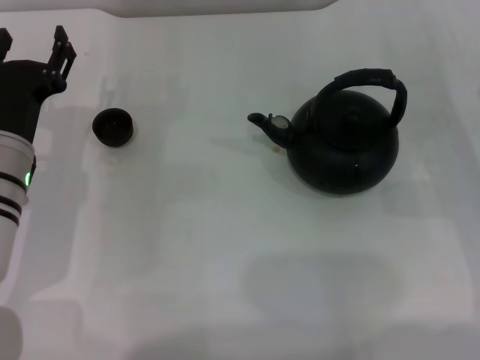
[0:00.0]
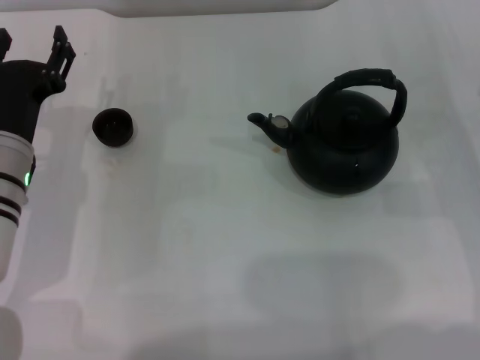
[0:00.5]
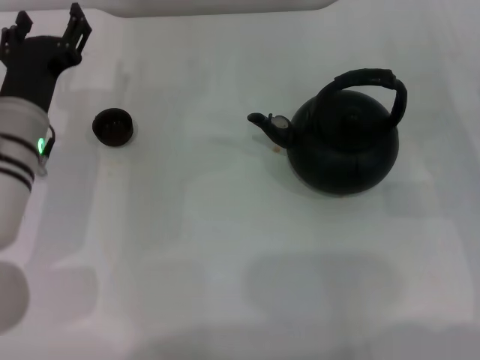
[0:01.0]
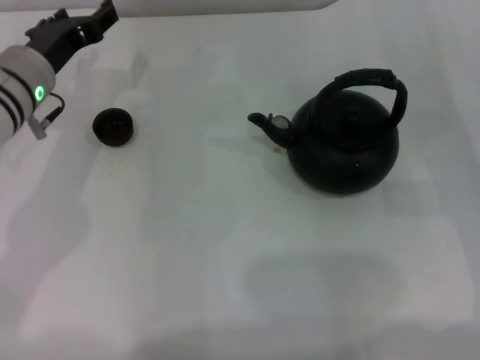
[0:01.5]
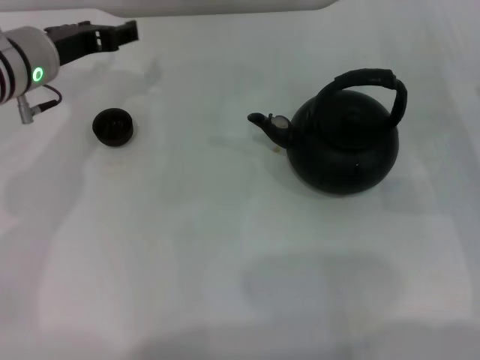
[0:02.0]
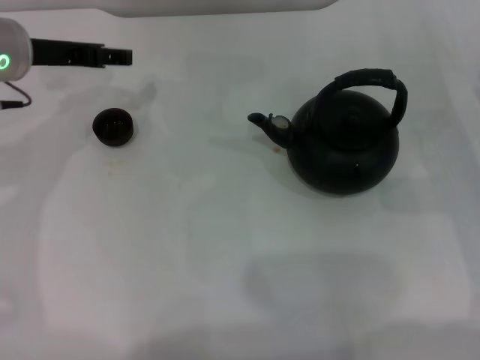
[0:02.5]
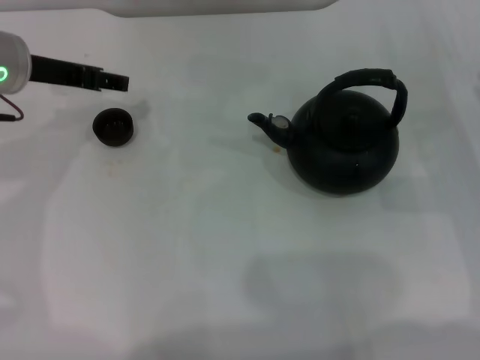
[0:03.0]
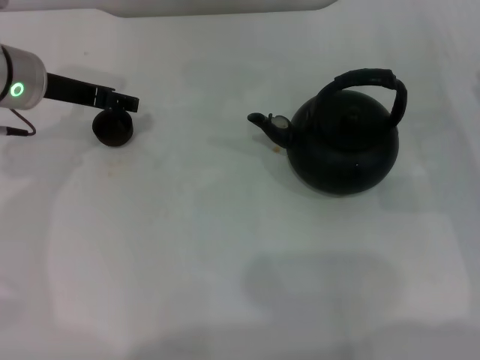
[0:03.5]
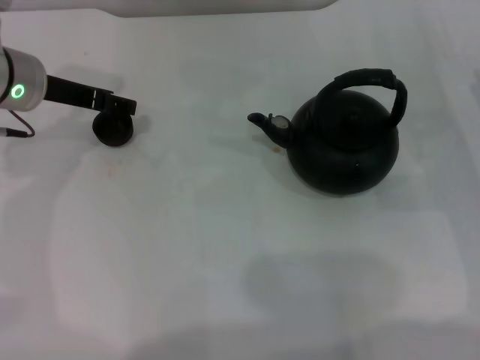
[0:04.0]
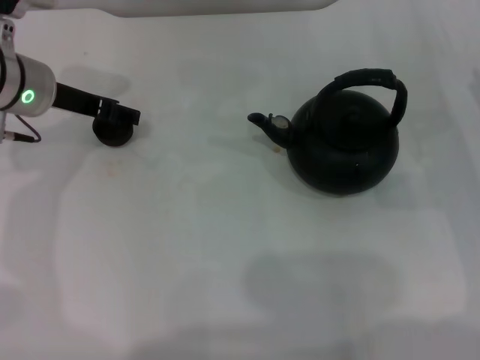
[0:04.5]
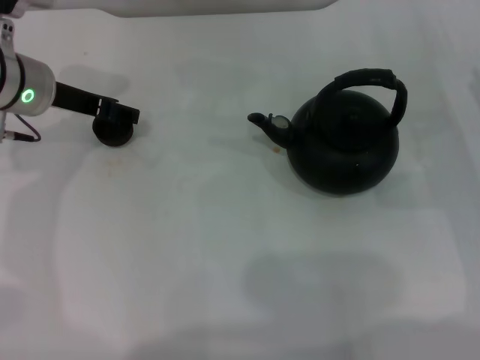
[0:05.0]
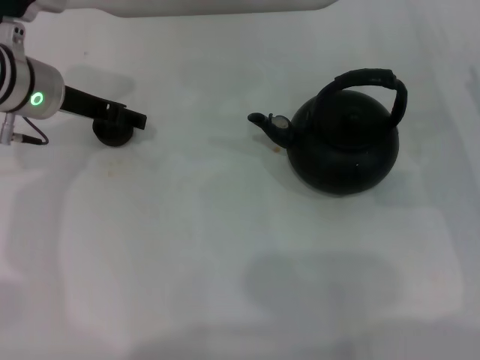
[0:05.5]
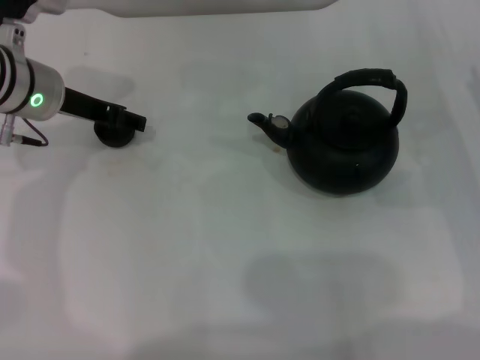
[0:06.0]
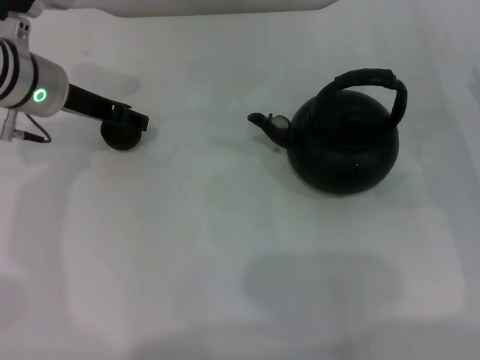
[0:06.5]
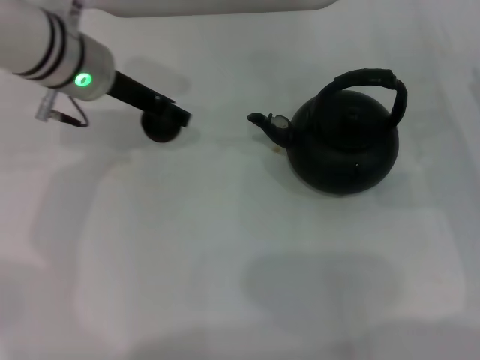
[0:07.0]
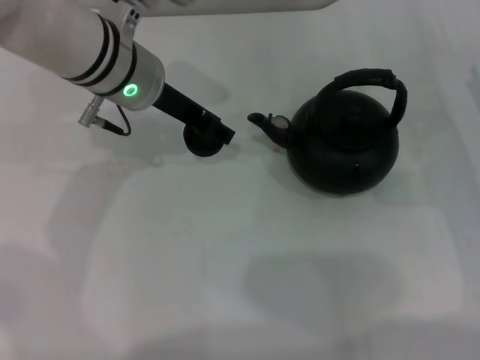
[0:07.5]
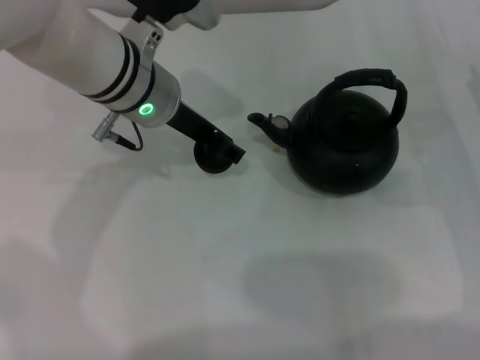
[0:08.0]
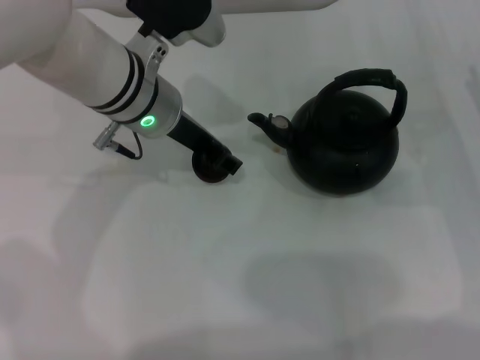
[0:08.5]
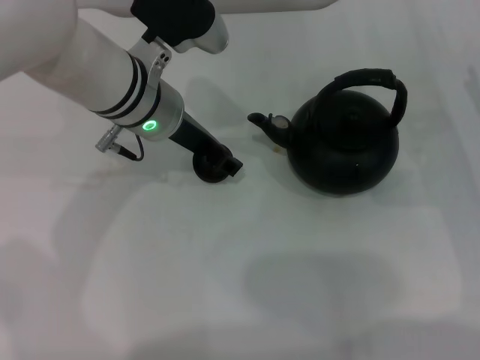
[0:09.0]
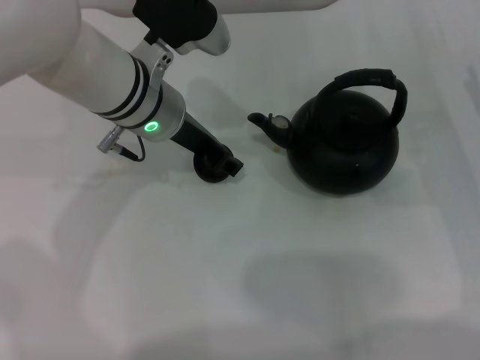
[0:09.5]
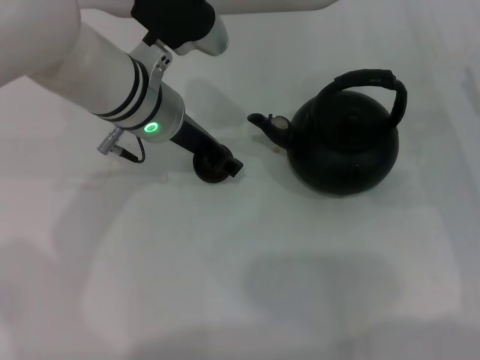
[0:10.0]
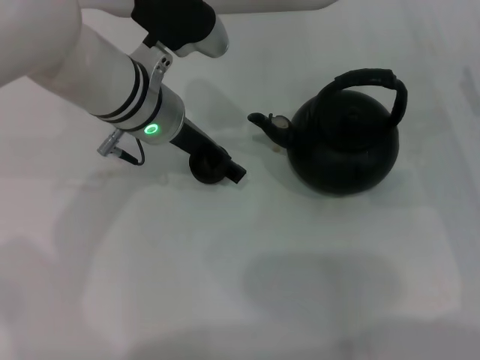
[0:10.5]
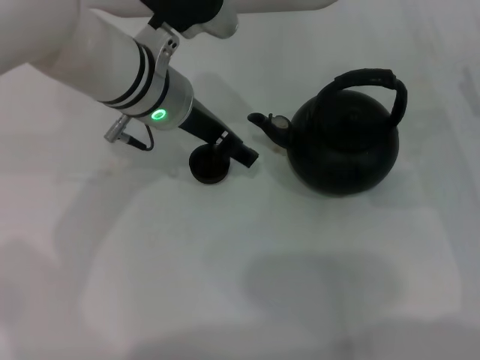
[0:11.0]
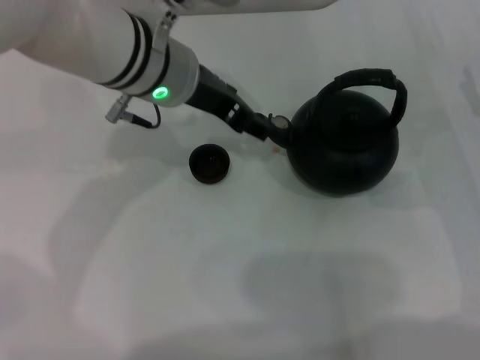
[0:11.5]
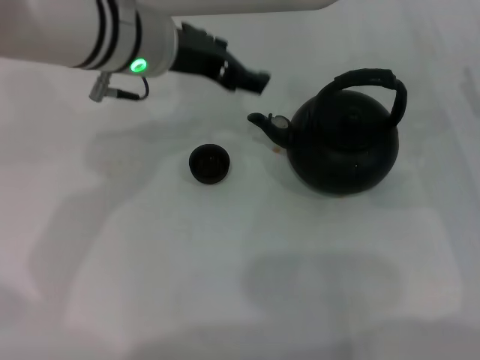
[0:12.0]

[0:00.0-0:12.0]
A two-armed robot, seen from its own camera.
Task of the whole recording: Grasp the handle of the teapot with one hand and pour tea into the teacup.
Step, 0:00.0 to 0:06.5: Pick up the teacup with the left gripper.
Step, 0:07.0 to 0:11.5: Place the teacup in the center of view with the left gripper.
0:00.0 to 0:02.0: The left gripper moves forward and upward, about 10 cm.
0:04.0 to 0:06.0: The grippers make only small movements.
0:06.0 to 0:08.0: The left gripper goes roughly 10 cm to the right, and closes up.
0:08.0 to 0:10.0: The grippers make only small movements.
0:10.0 to 0:12.0: The left gripper goes approximately 5 cm upward, and opens its fingers.

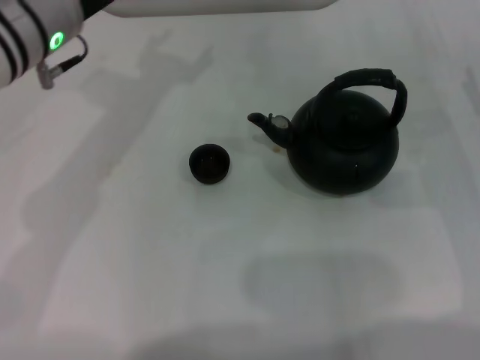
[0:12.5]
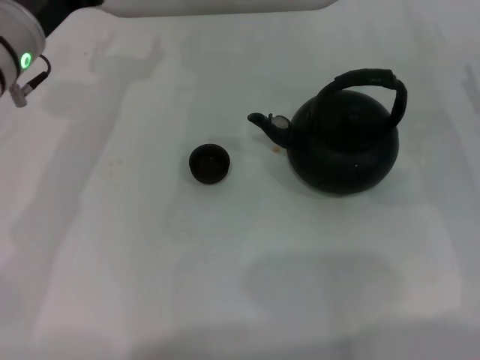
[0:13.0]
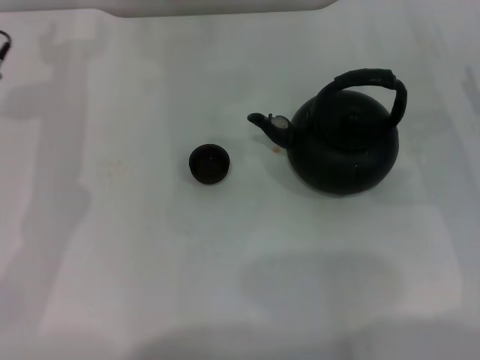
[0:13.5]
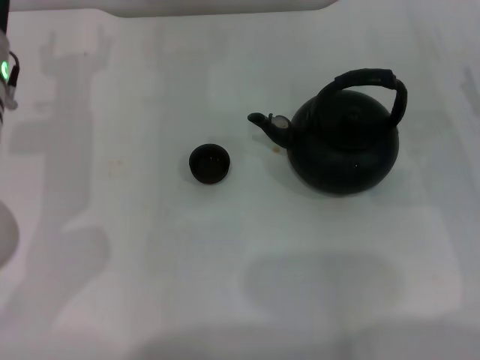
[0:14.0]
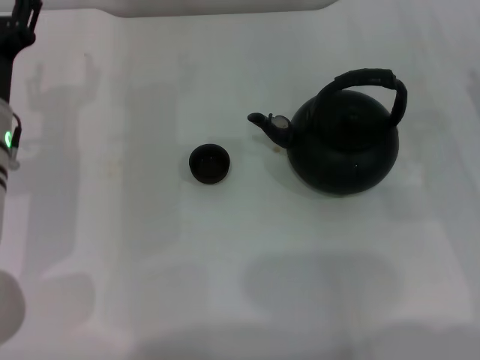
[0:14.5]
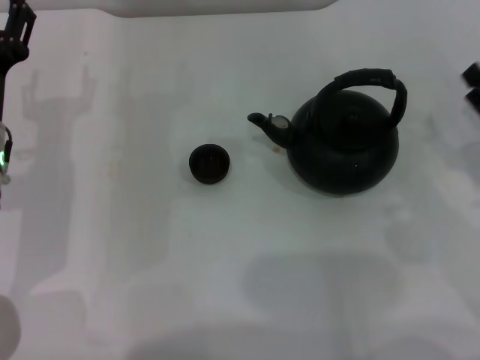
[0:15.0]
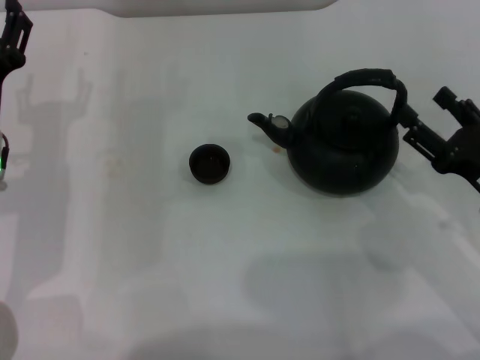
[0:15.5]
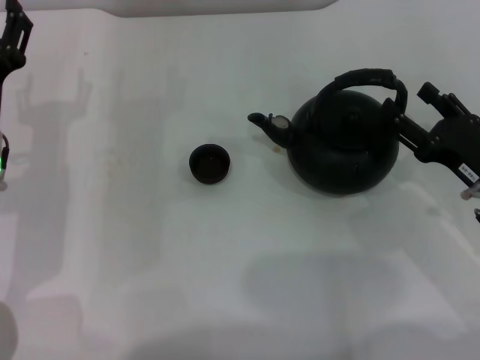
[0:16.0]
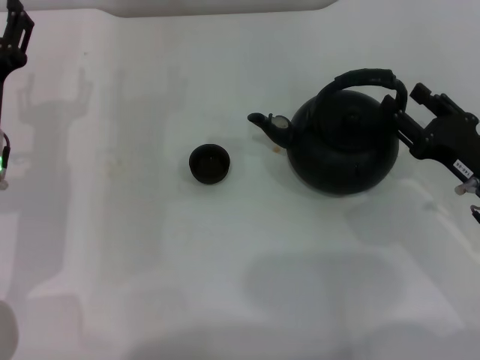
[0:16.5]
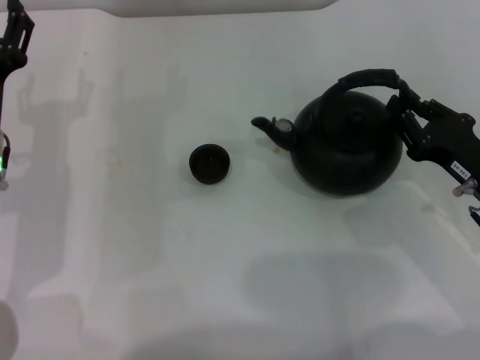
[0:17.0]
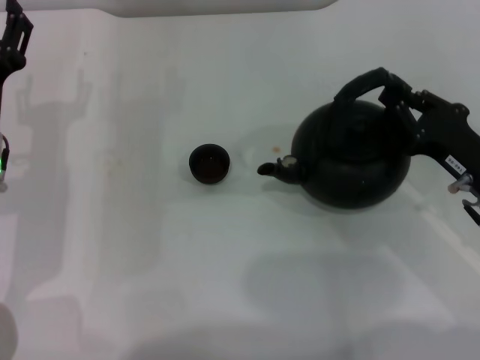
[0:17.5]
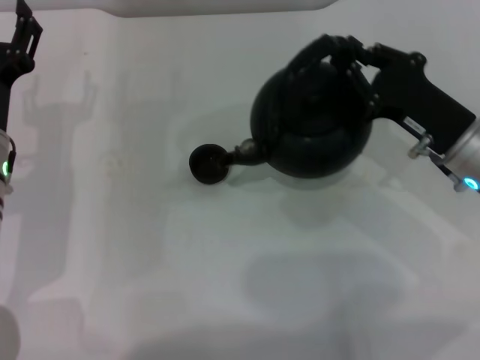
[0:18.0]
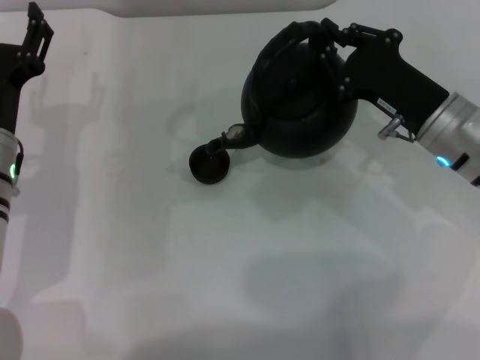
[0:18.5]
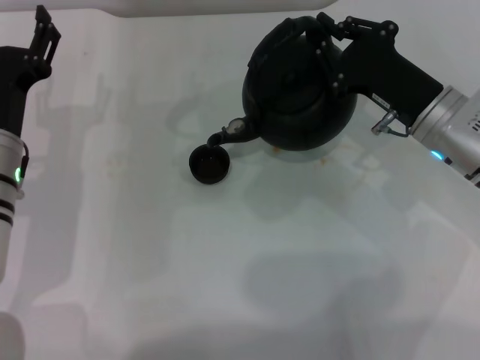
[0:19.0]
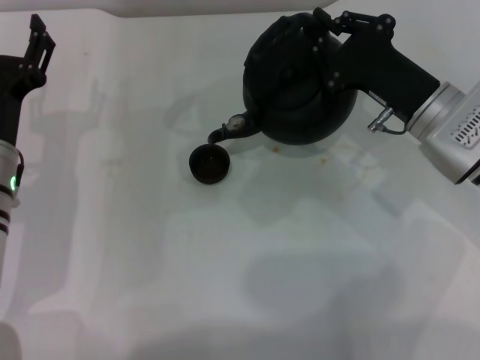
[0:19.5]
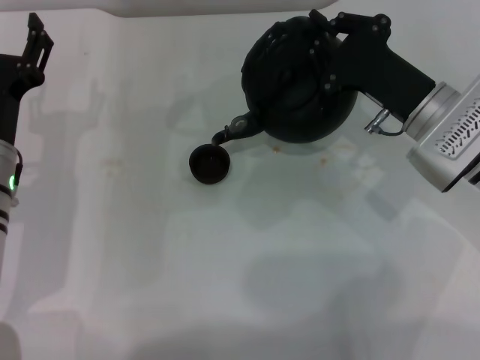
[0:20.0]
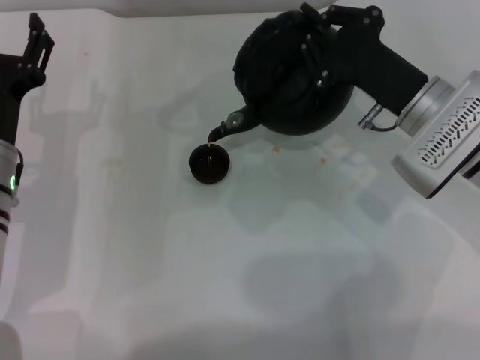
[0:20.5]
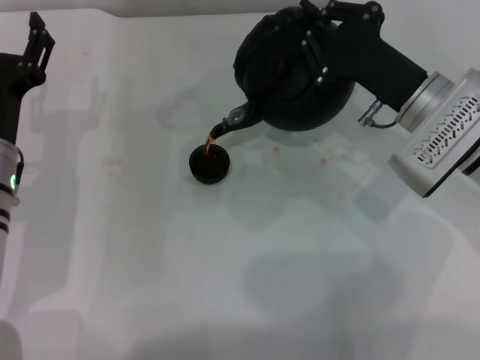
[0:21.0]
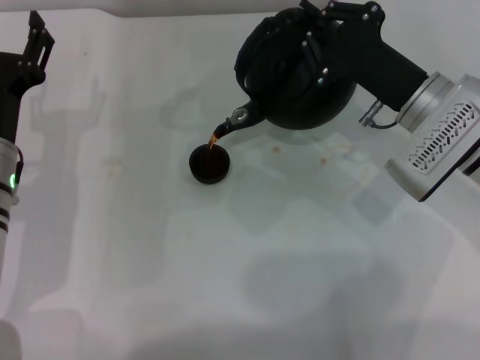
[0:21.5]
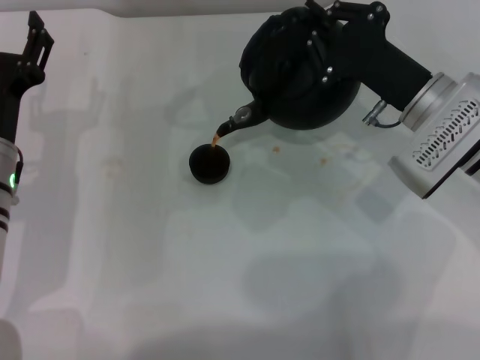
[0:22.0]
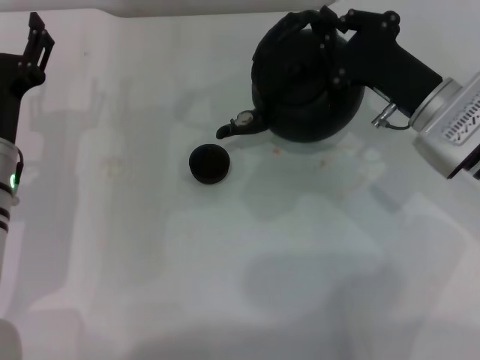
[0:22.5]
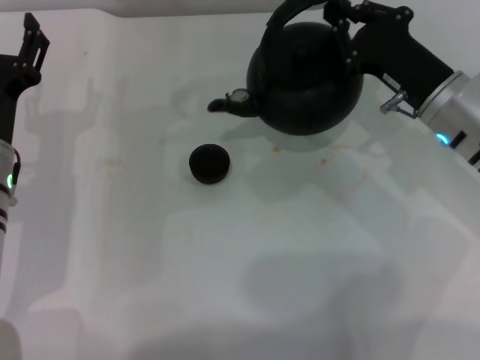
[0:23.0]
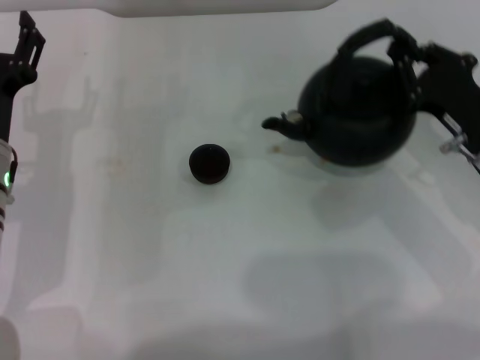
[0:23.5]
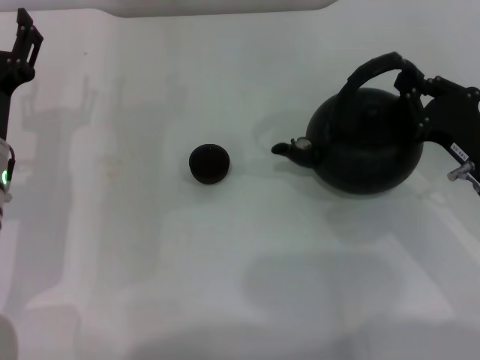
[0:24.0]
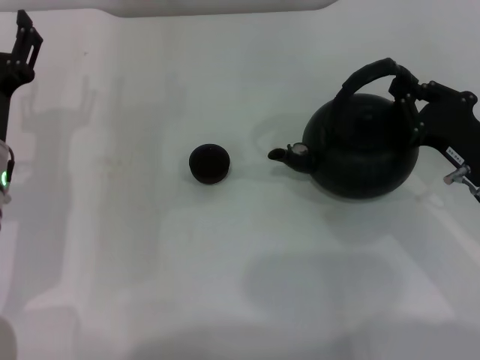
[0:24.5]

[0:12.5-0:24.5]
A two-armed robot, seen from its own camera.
Task of the whole recording: Grasp the handle of the teapot with one hand and pour tea into the teacup.
Step, 0:12.5 to 0:17.5: Pick up the teapot with the right gripper.
Step, 0:18.0 to 0:22.5: Pour tea into the teacup with the right gripper.
0:12.5 to 0:14.5: The left gripper travels downward, backward and to the left by about 10 cm.
0:14.5 to 0:16.5: The right gripper moves to the left, roughly 5 cm.
0:16.5 to 0:18.5: The right gripper shifts some 10 cm to the left and forward, and closes.
0:20.5 to 0:22.5: The grippers move only a little.
0:22.5 to 0:24.5: The right gripper goes roughly 10 cm backward and to the right.

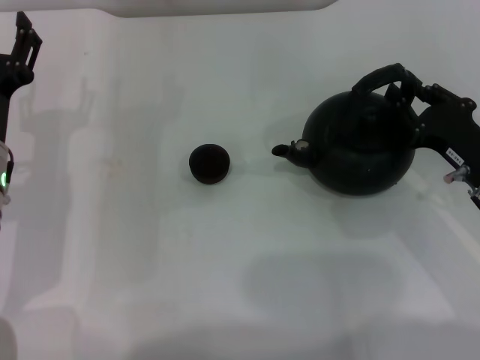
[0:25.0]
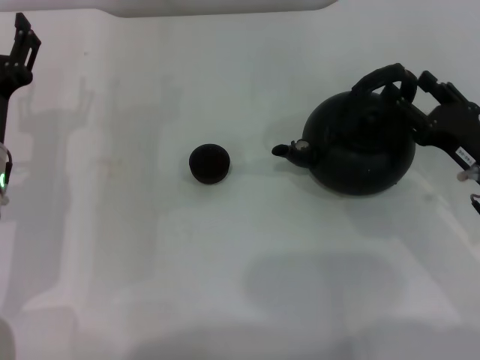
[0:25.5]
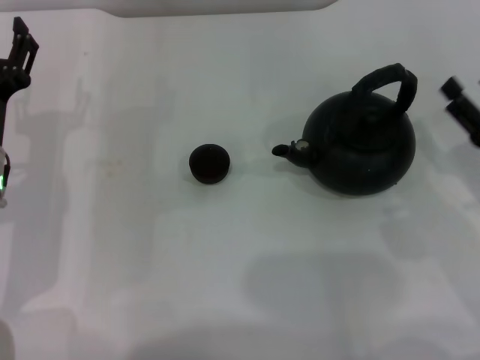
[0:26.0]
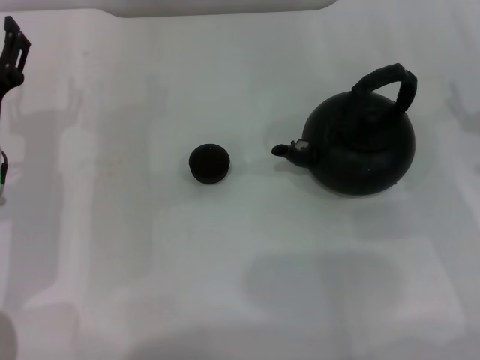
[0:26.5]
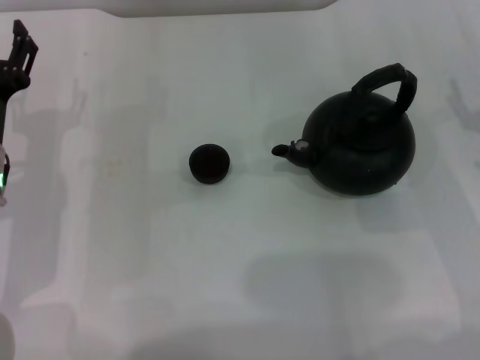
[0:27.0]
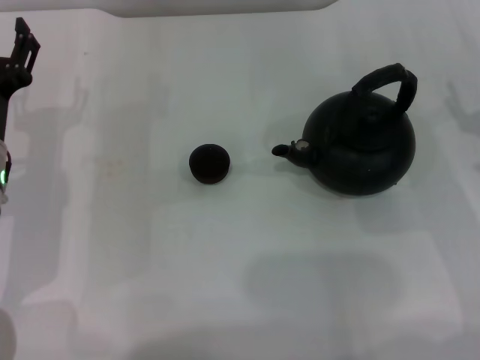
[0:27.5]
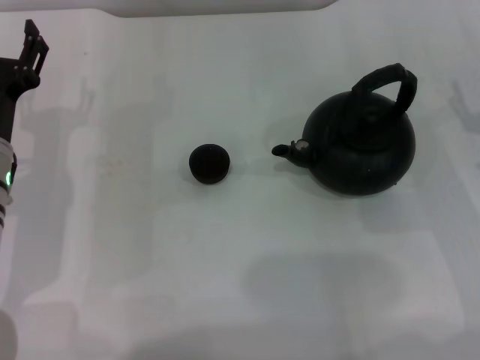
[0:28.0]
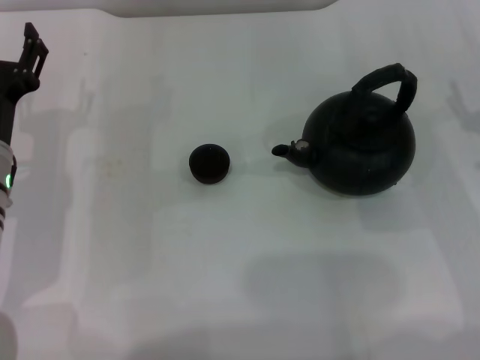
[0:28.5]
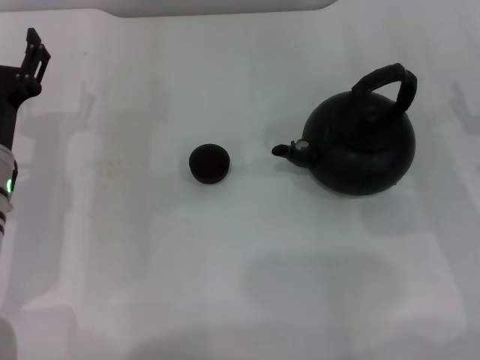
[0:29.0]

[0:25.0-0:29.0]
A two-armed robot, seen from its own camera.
Task of the whole recording: Grasp the handle of the teapot with one hand and pour tea into the teacup.
0:25.0 to 0:27.0: The right gripper ends up approximately 5 cm from where it was, and opens.
0:27.0 to 0:29.0: Both grippers stay about where they are.
